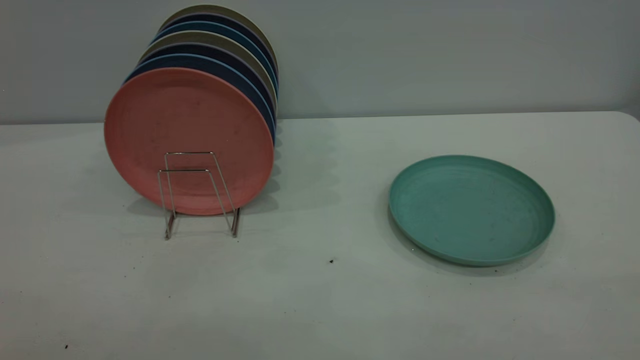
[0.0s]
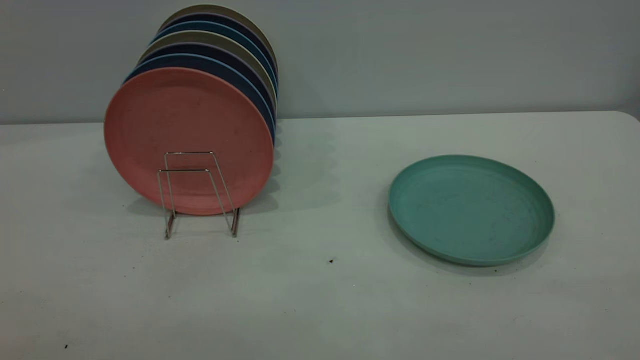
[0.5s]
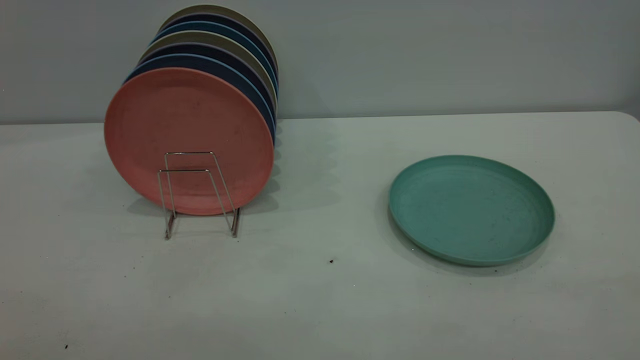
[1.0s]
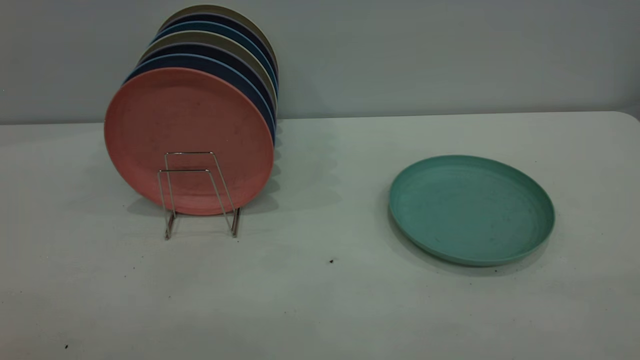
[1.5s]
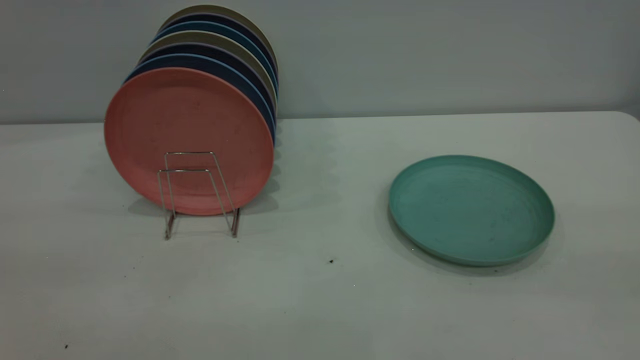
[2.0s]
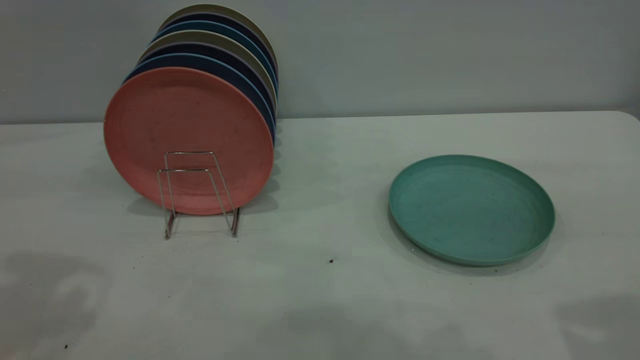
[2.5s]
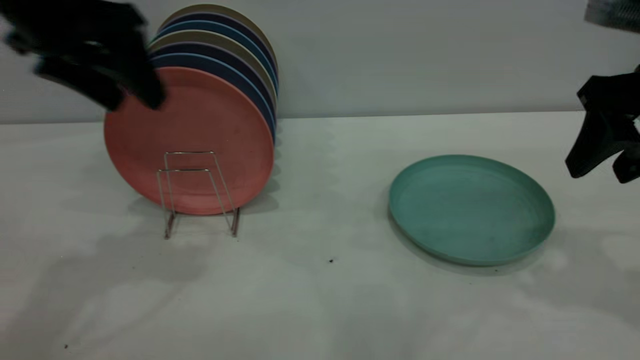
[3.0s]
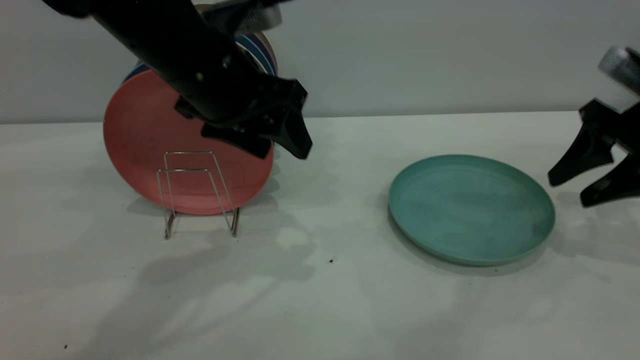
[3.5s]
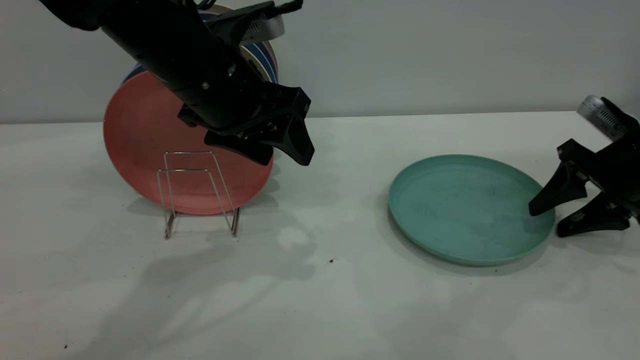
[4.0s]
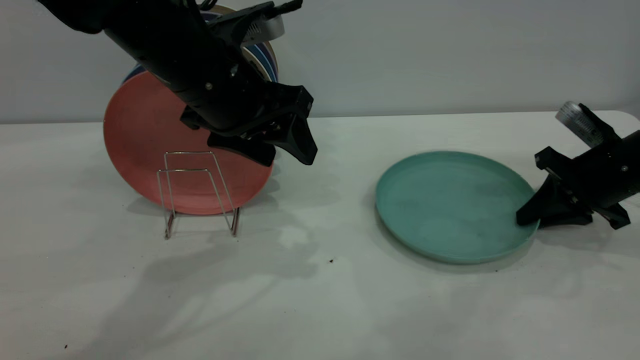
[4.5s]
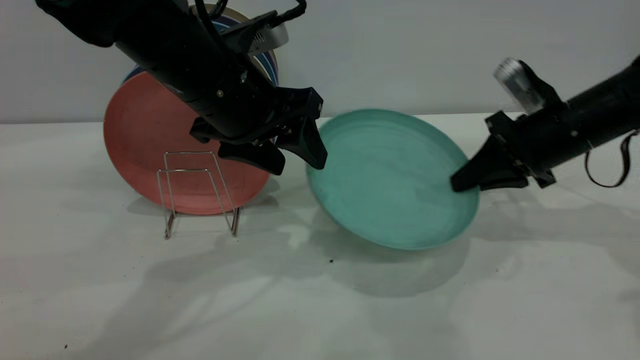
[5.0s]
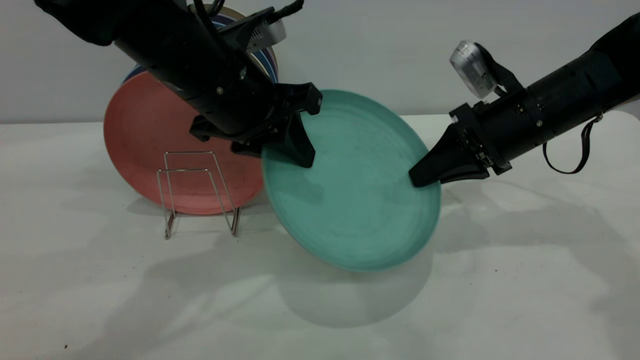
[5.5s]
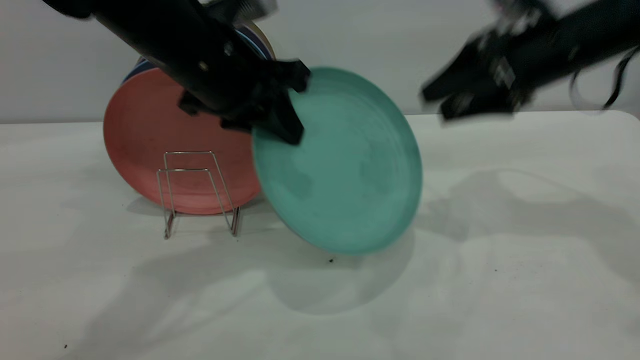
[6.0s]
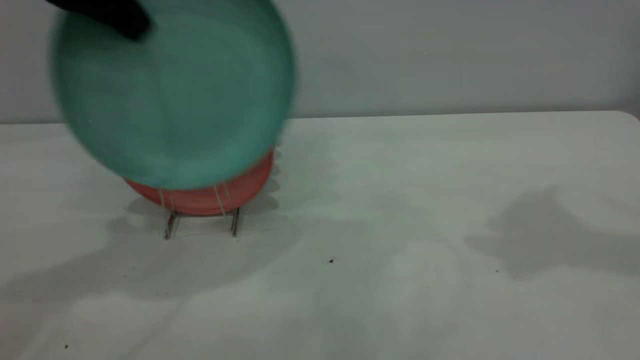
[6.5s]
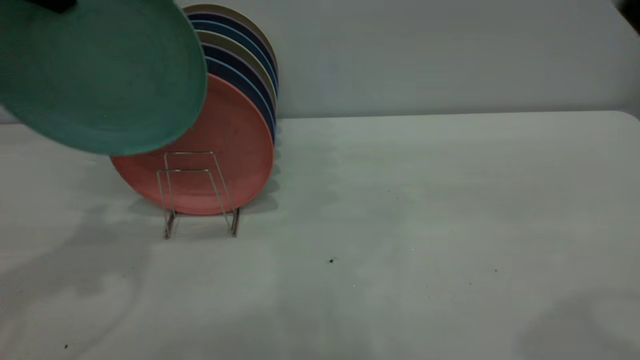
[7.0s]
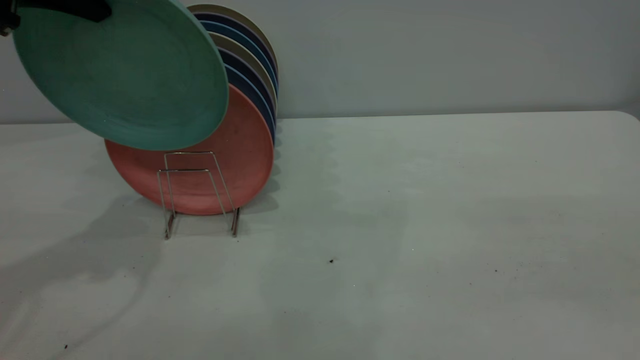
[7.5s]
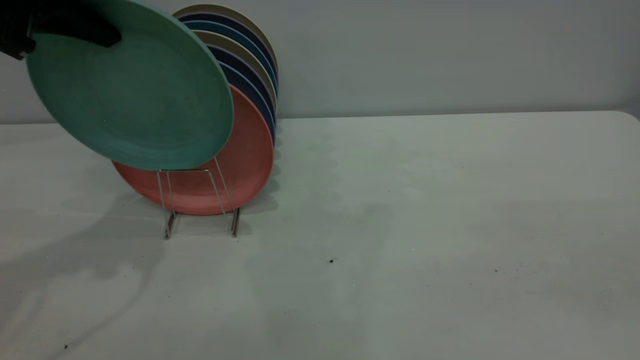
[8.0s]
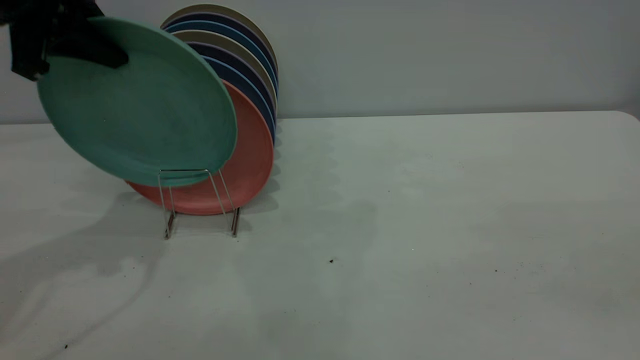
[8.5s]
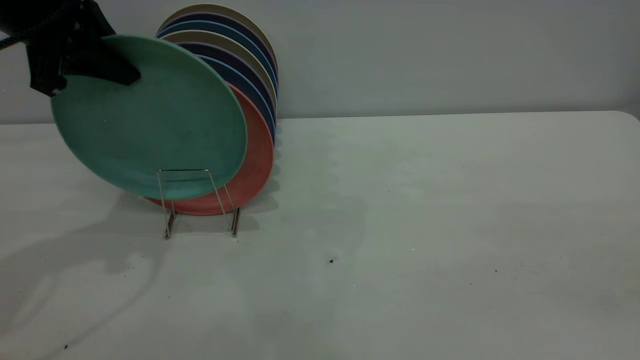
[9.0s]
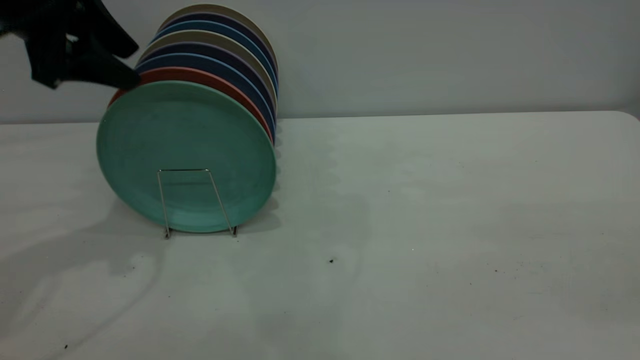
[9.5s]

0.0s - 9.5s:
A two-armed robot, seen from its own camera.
Task of the whole recording: the right gripper grasp the green plate, the right gripper pass the green plate to the left gripper, and the left gripper place the green plate on the plate rack.
Step, 0.0s - 4.5s: Pick up the plate with the right gripper.
Step, 5.0s - 5.5s: Pass the plate from the right gripper to the left gripper.
Step, 6.0s - 9.5s: Place the plate on the shelf.
2.0s - 4.0s: The left gripper goes about 40 cm forward, downward and to the right. The right gripper is displaced forward and downward by approximately 40 cm.
4.0s - 5.5s: The right gripper goes about 15 cm to the left, and closes its fingers; the left gripper closes its fingers.
5.5s - 7.5s: The left gripper goes roughly 20 cm to the left and upward. The right gripper goes approximately 40 cm backward and upward, and opens up.
7.5s - 9.5s: The left gripper ends up roughly 5 cm from where it was, and opens up.

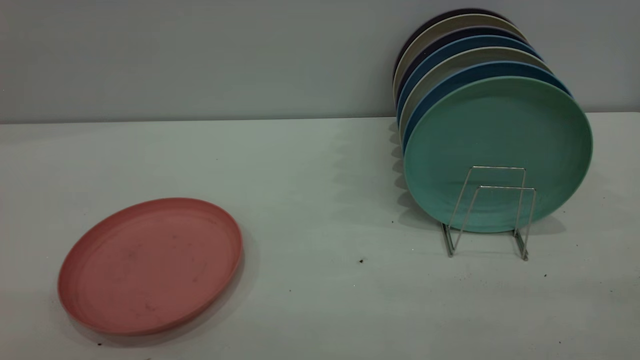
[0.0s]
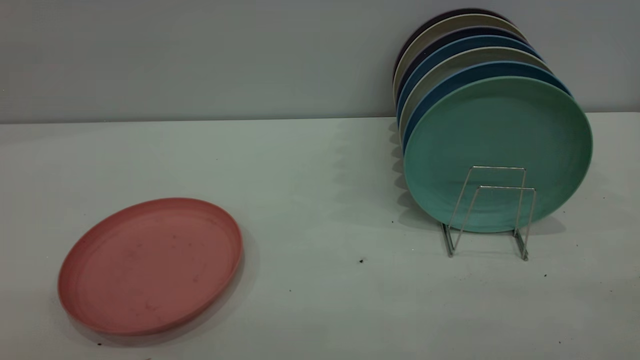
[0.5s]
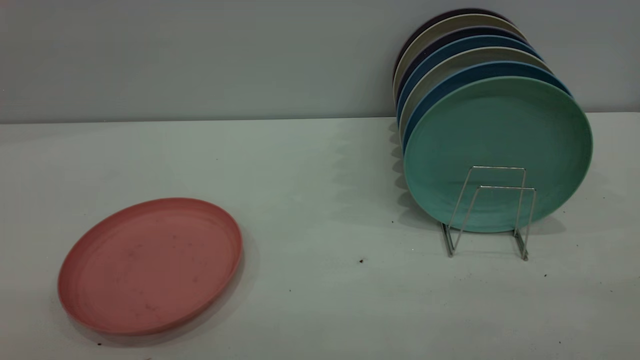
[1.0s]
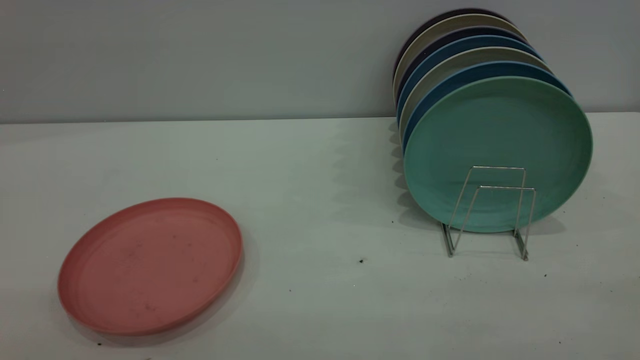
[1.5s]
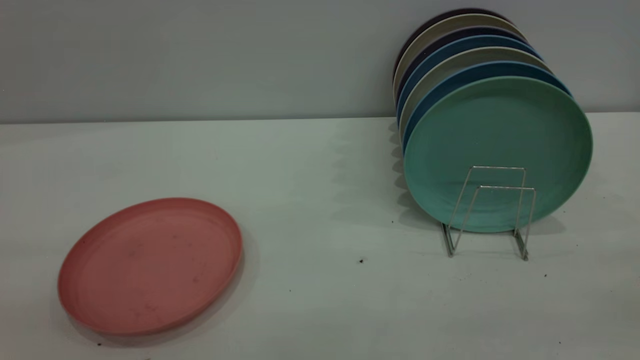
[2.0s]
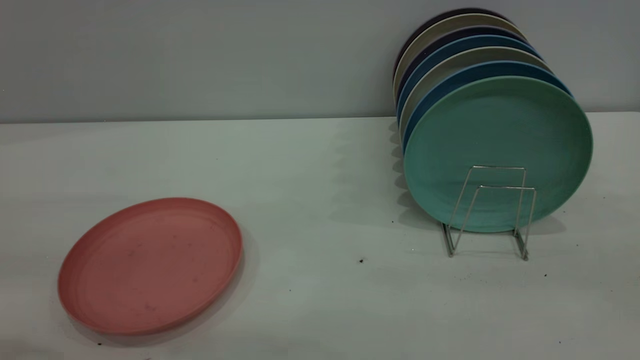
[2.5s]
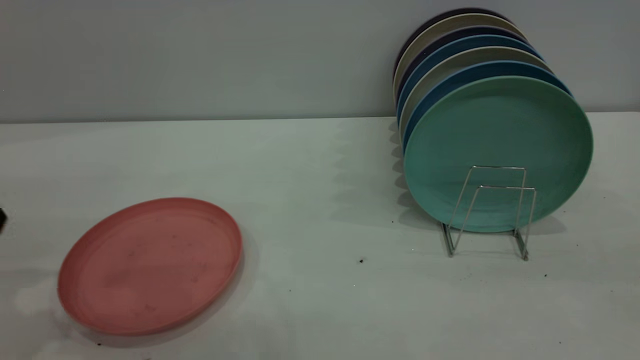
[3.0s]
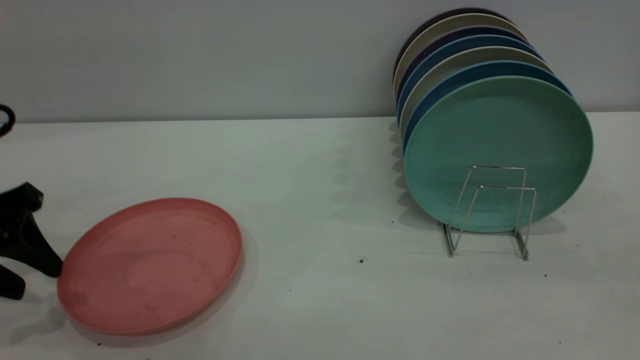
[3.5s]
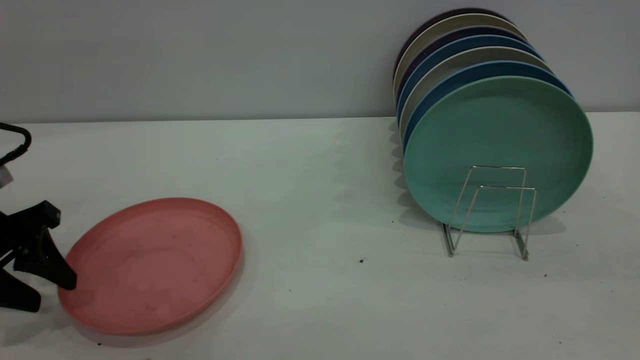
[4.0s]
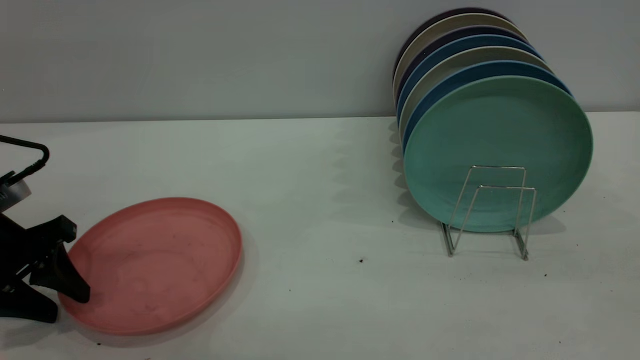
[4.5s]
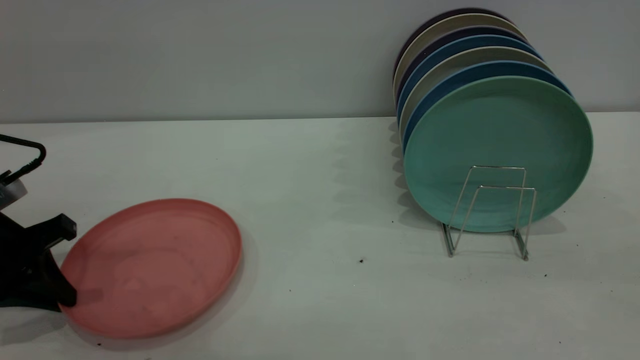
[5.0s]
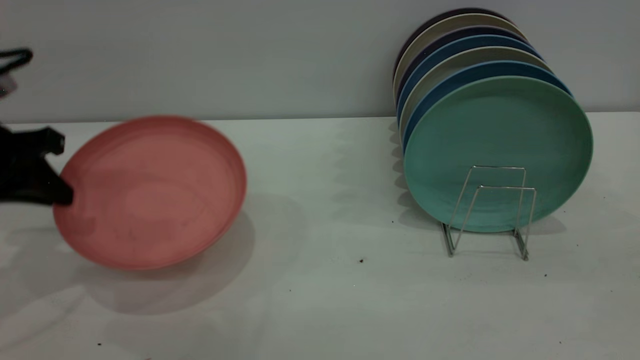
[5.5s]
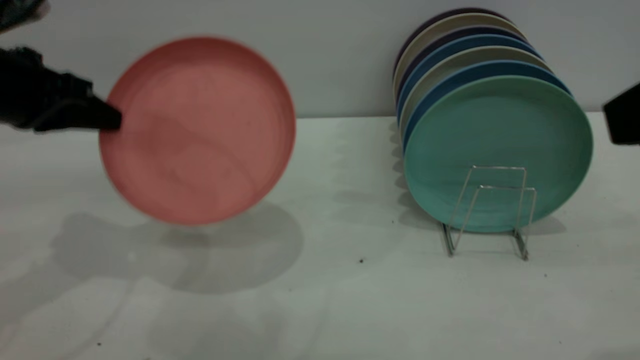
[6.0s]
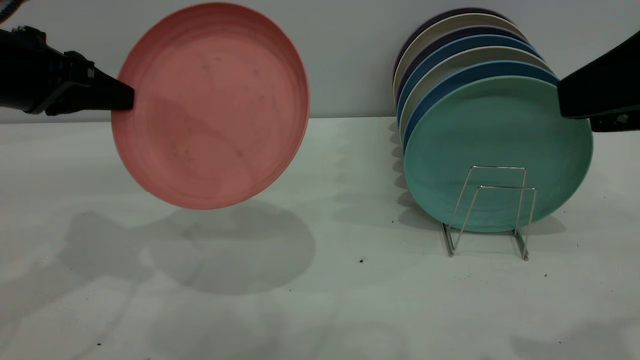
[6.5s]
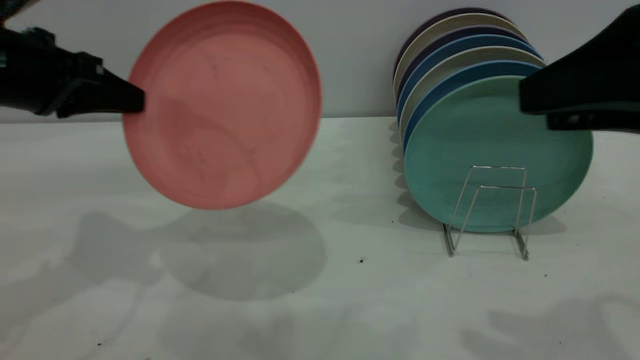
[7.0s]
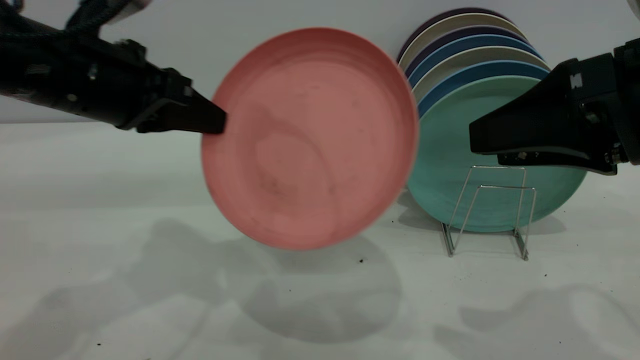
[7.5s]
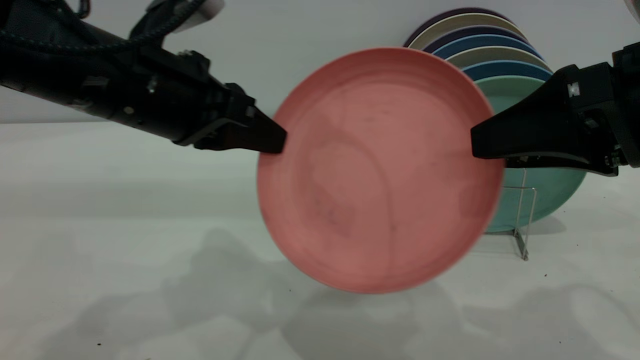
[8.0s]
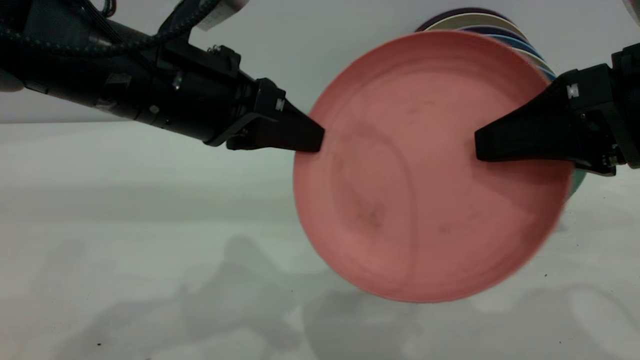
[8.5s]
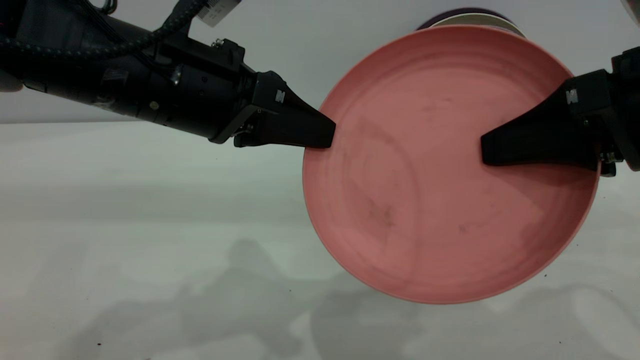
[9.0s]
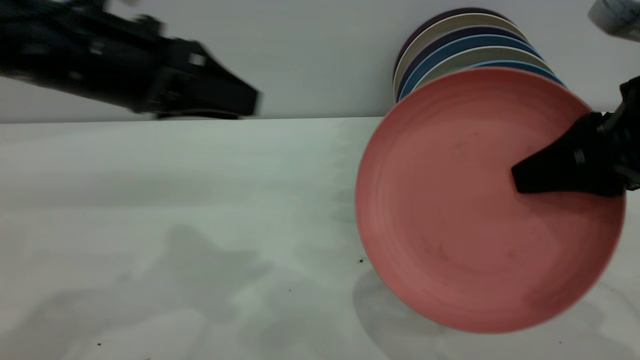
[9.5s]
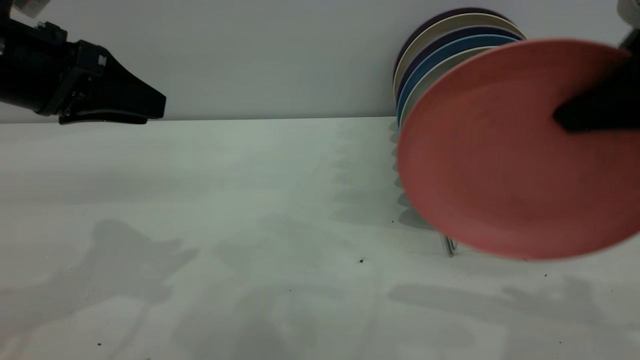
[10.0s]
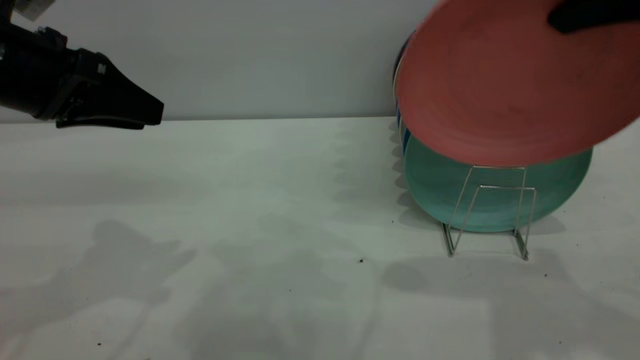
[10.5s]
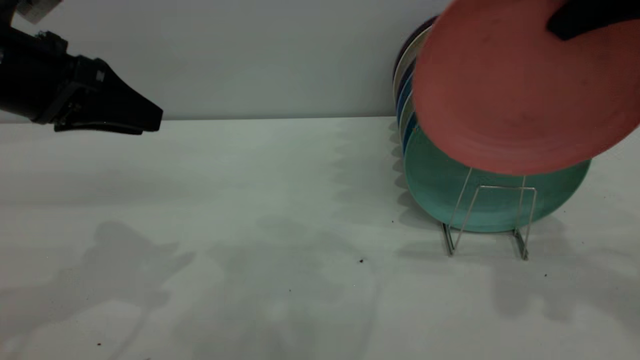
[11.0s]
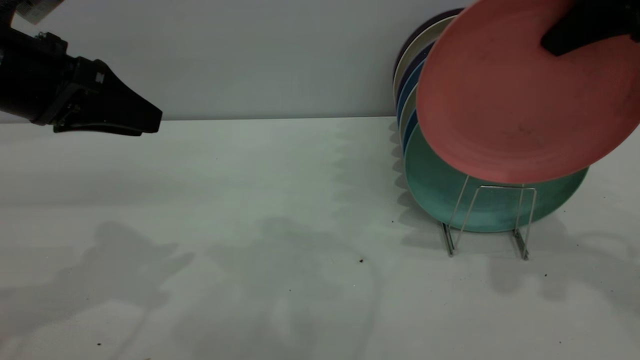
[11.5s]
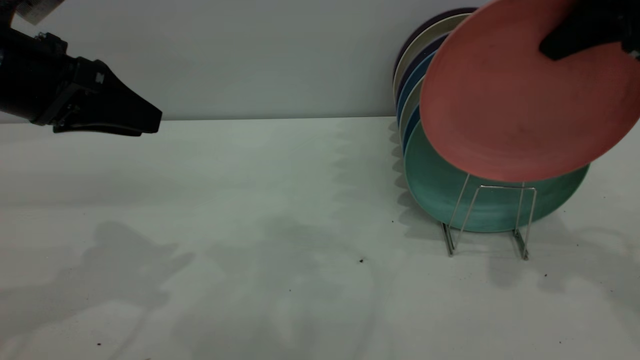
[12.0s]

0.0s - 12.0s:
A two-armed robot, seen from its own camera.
Task of the whole recording: put the plate on the plate rack.
Step, 0.0s - 5.0s: Pick up the plate with the left gripper.
Step, 5.5s - 9.0s: Pass the plate from the left gripper to the right gripper.
2.0s - 4.0s: The left gripper shifts approximately 35 cm downward and forward.
4.0s - 6.0s: The left gripper moves upward, approximately 10 cm, and closes its fingers.
6.0s - 8.0s: The left gripper heads to the right, covering approximately 15 cm. Meanwhile the right gripper is displaced downward and forward by approximately 10 cm.
8.0s - 10.0s: The right gripper ends up approximately 5 cm from where it was, and closes up; the left gripper heads to the left, covering approximately 10 cm, and opens.
10.0s - 12.0s: The right gripper moves forward, approximately 10 cm.
